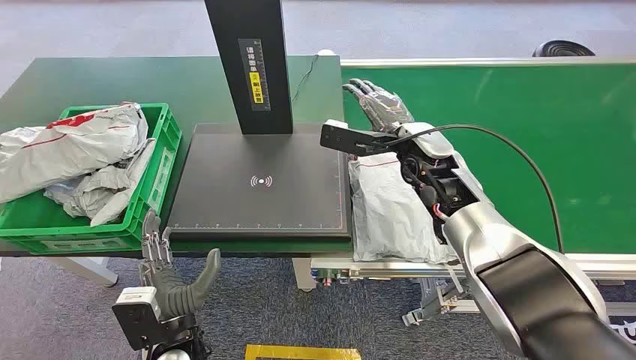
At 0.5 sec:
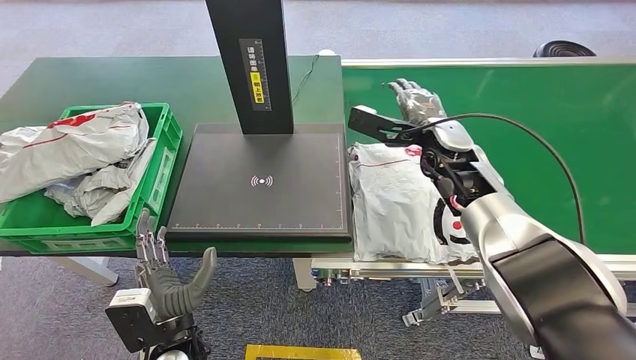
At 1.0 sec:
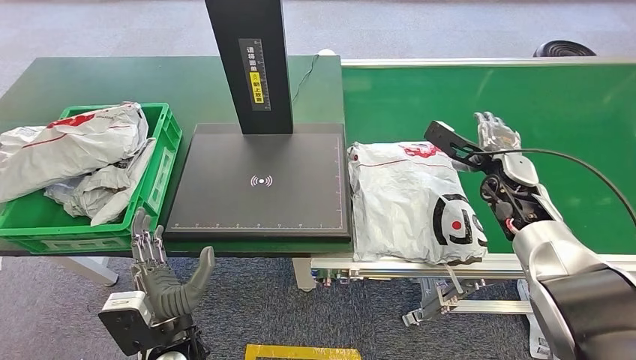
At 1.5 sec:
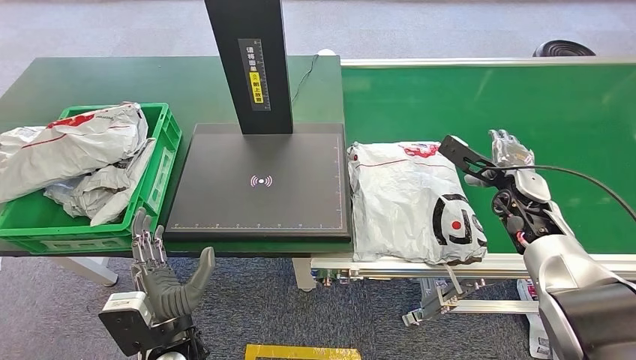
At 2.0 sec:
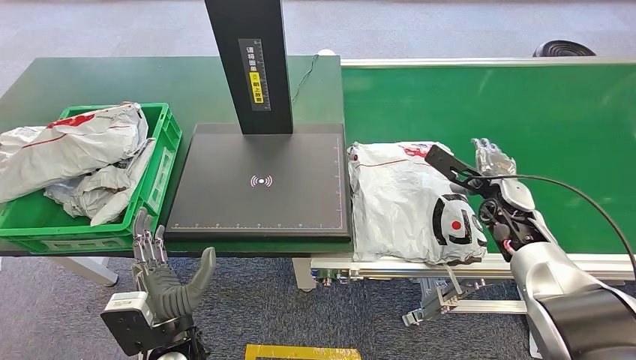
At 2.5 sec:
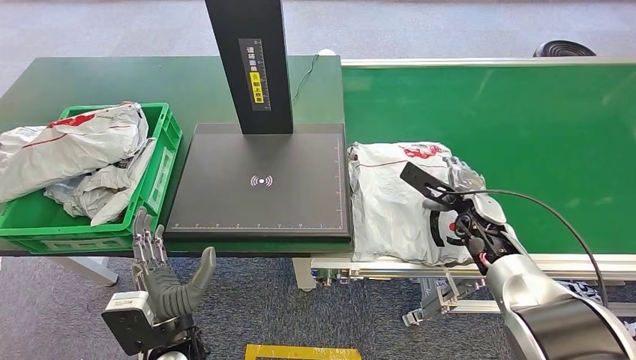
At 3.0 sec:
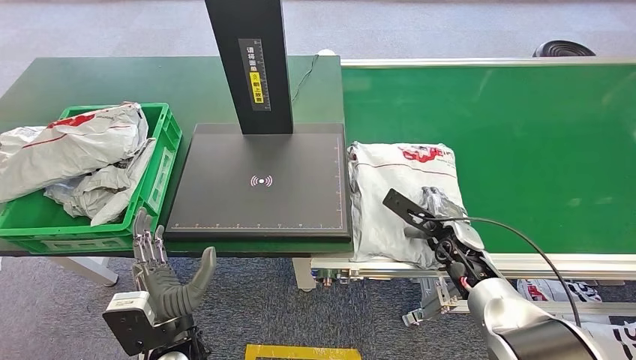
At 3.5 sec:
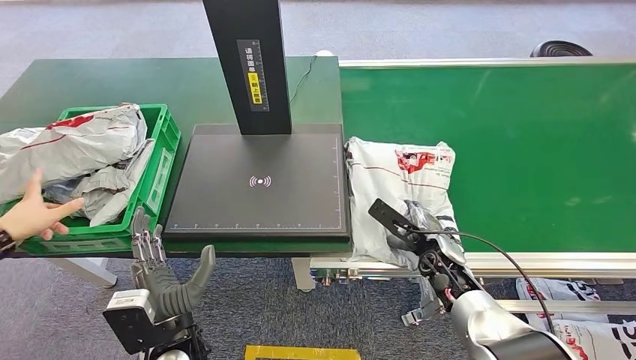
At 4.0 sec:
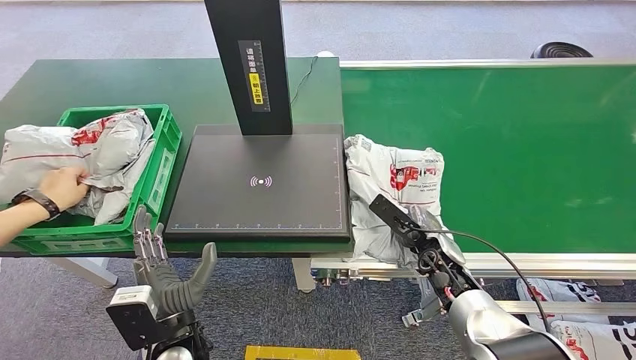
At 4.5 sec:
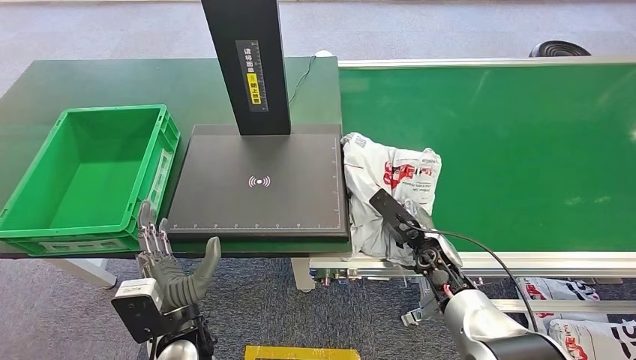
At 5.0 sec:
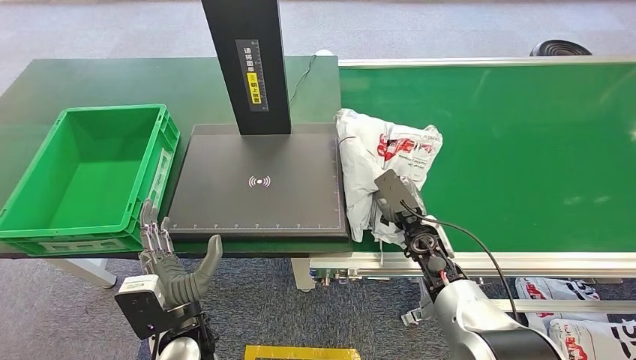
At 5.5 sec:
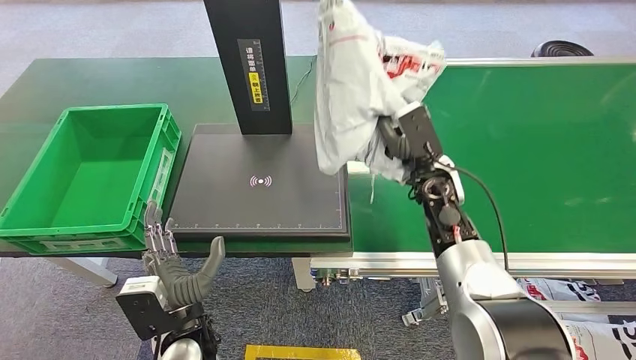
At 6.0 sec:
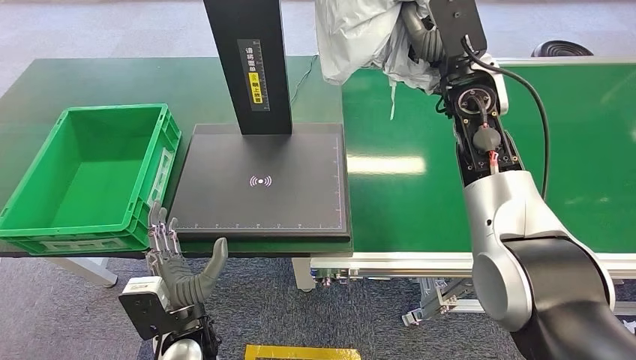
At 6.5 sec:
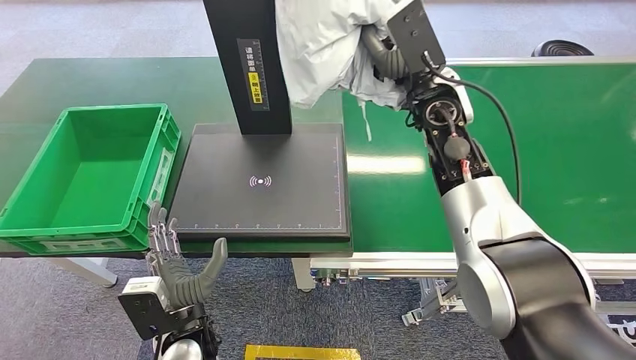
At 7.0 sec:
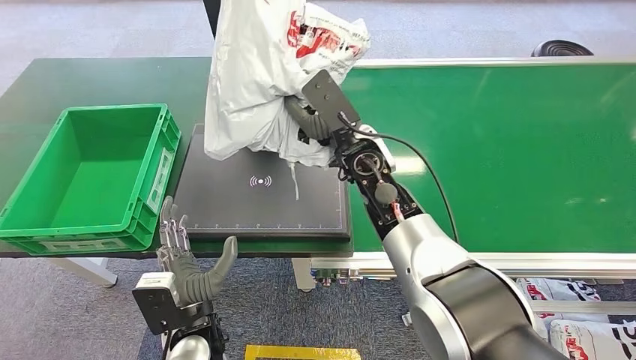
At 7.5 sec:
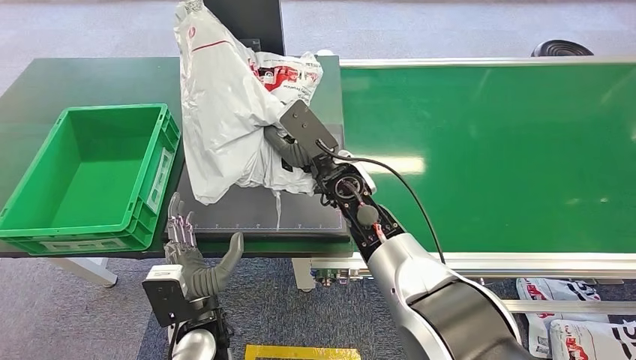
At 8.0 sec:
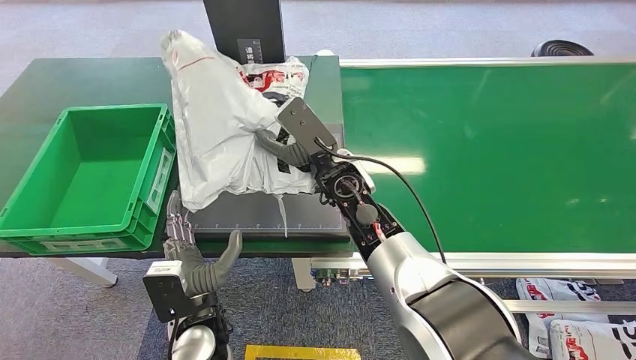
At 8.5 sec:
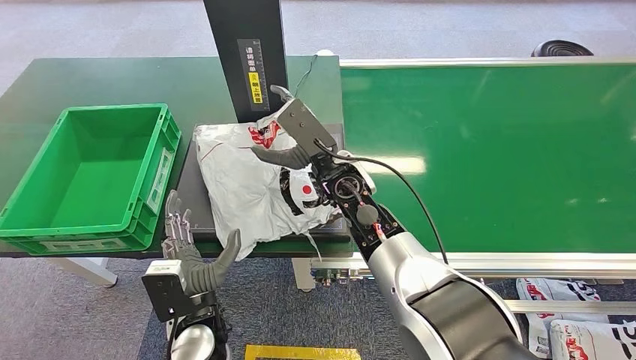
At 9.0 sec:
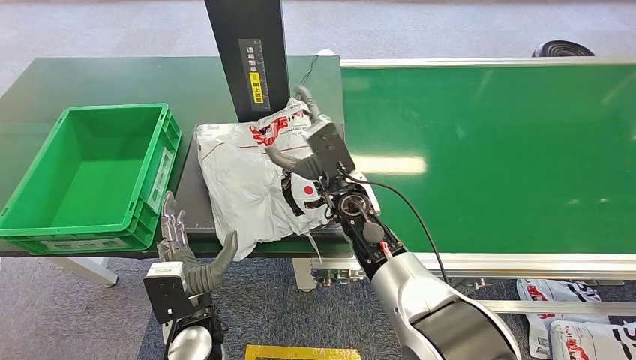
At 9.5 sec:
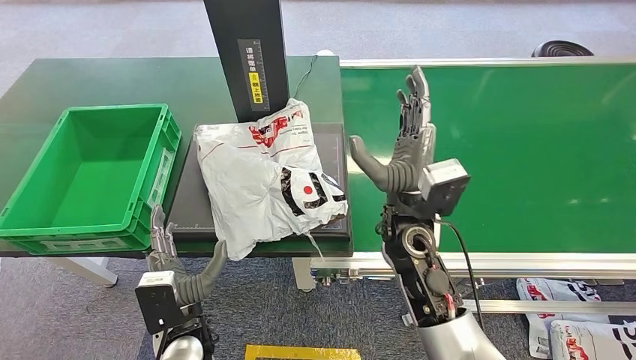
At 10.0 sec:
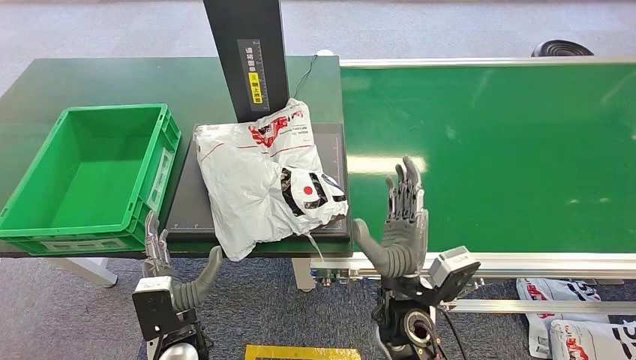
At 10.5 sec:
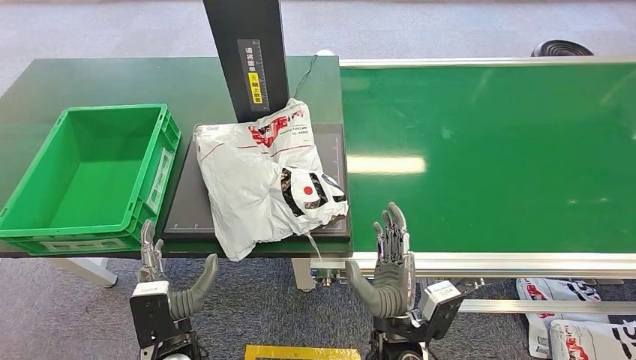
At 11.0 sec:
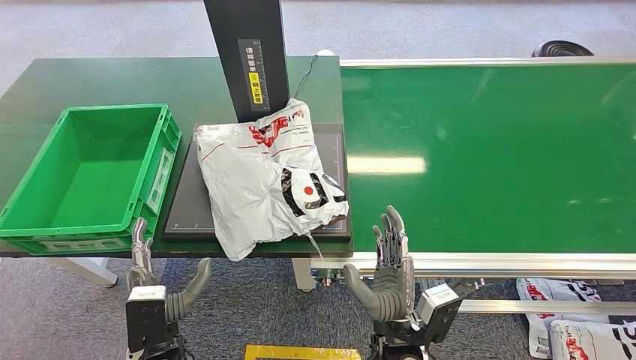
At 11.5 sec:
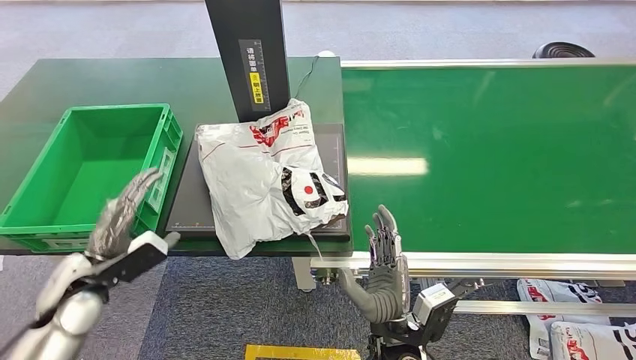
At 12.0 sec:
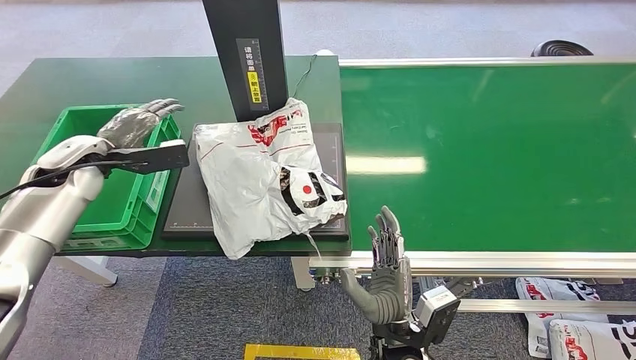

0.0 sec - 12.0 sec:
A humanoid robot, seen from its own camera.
Task of the whole recording: Weigh the package on the weighing device and place it in the left basket.
Step, 0.0 sec - 5.5 sec: Pick up the package from the conveyor belt.
Step, 6.0 sec - 9.0 sec: Place the package onto the inbound machine.
2.0 sec - 4.0 sec: The right hand shifts approximately 15 cm to the left, downward and backward.
10.0 sec - 12.0 sec: The right hand travels backward and downward by approximately 10 cm. The left hand shifts approximately 40 cm forward, to the left and upward.

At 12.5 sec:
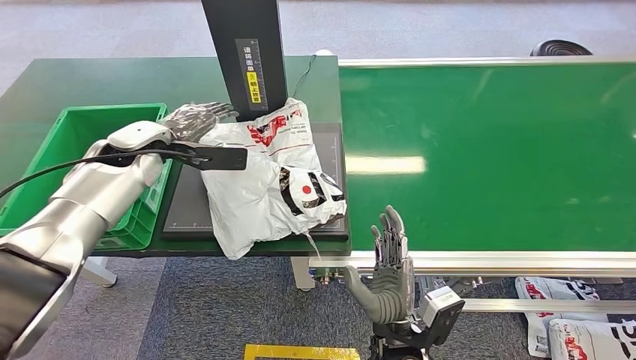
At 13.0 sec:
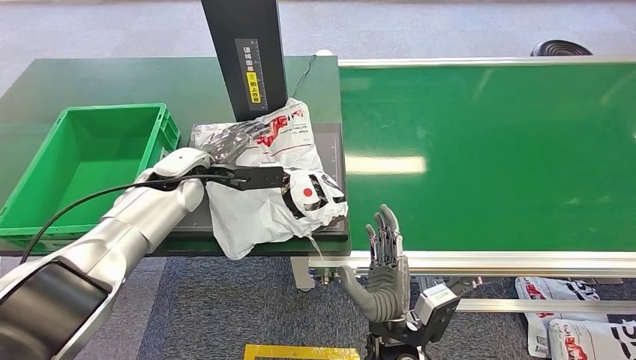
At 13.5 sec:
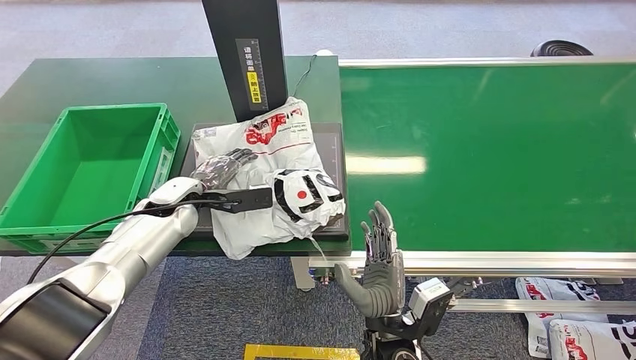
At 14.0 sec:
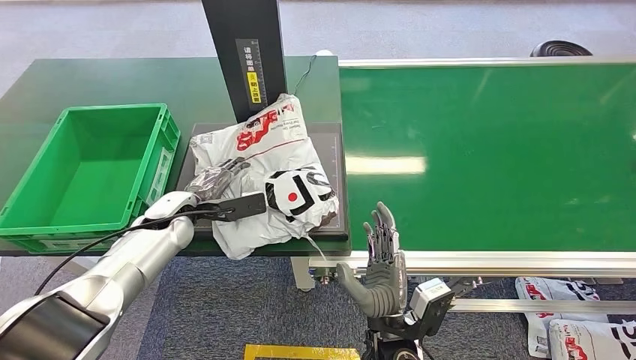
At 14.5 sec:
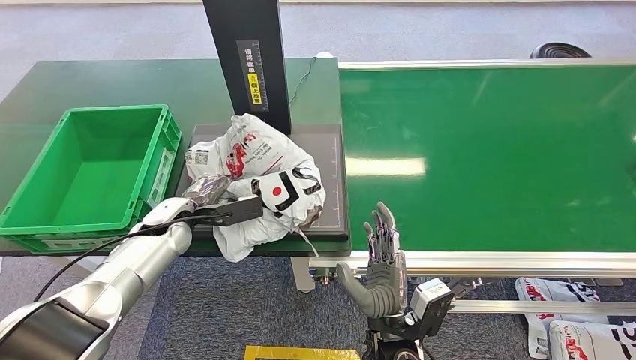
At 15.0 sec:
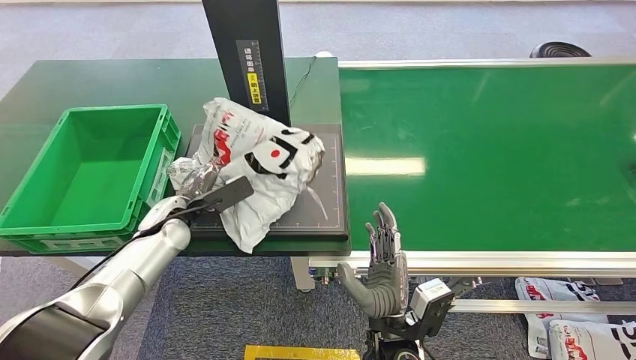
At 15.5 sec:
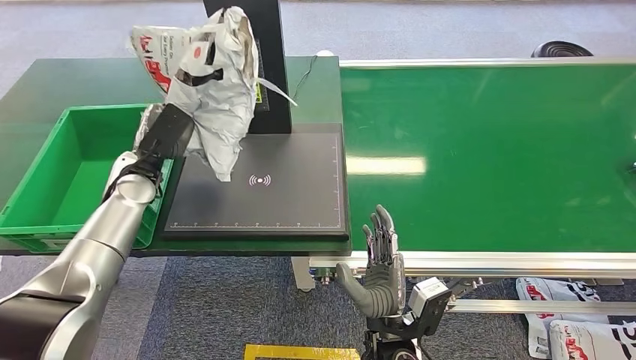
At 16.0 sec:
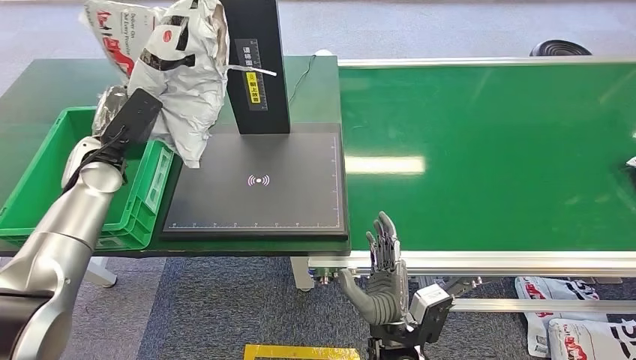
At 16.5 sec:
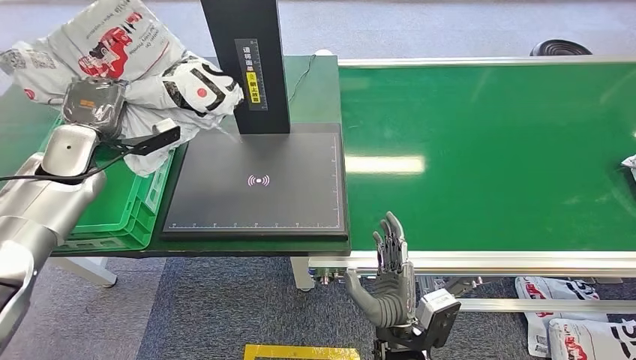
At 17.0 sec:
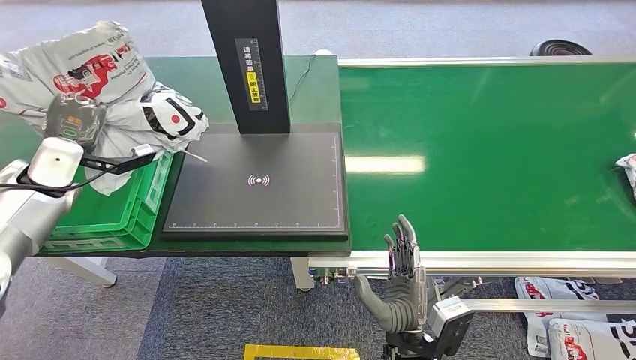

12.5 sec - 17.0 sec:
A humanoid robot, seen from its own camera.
Task of the whole recording: Weigh the package on the weighing device and place it in the left basket.
Step, 12.5 sec - 15.0 sec: Pick up the package from the inbound machine.
Step, 15.5 sec - 17.0 sec: Place the package into the parcel locker.

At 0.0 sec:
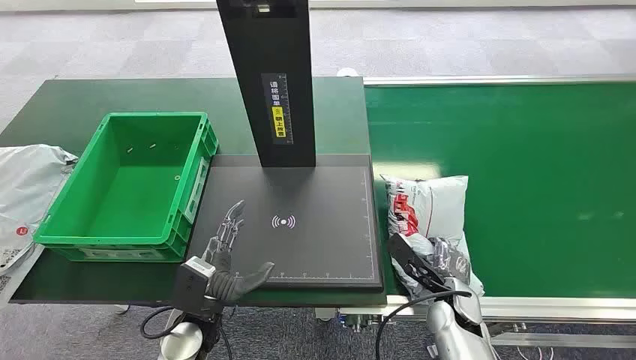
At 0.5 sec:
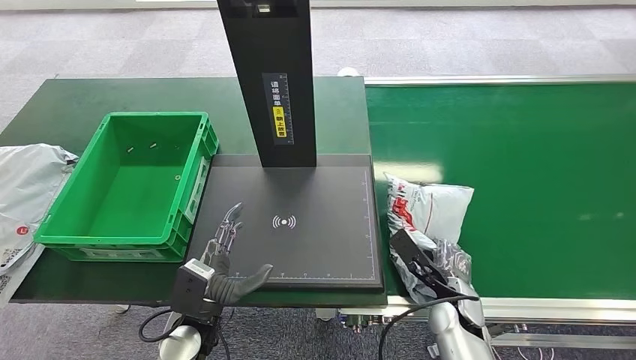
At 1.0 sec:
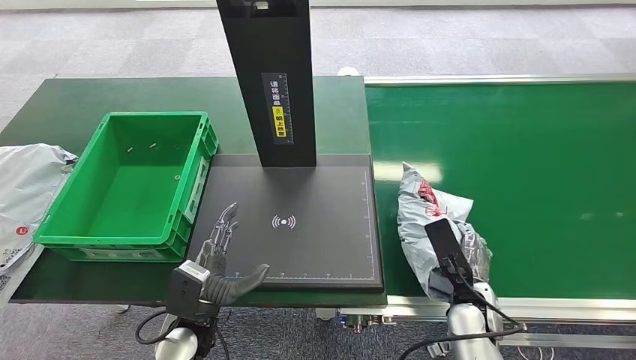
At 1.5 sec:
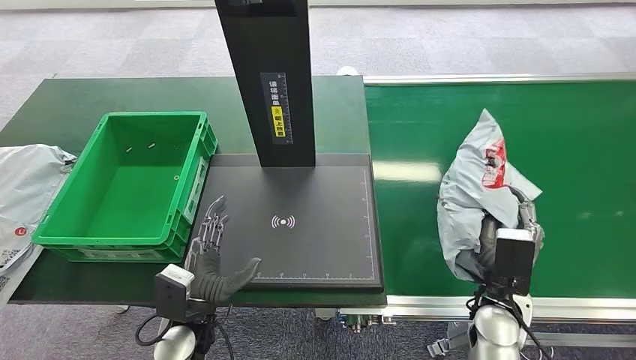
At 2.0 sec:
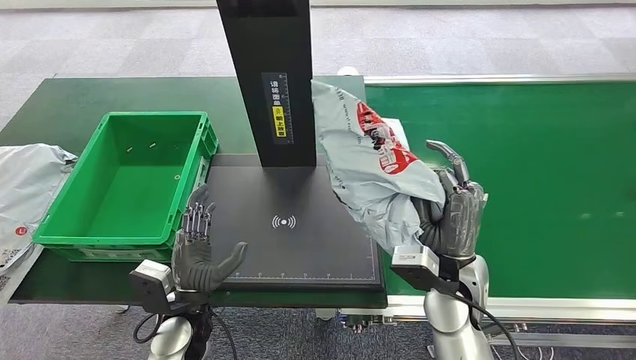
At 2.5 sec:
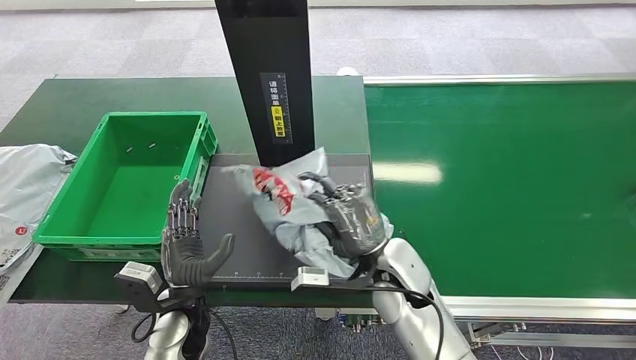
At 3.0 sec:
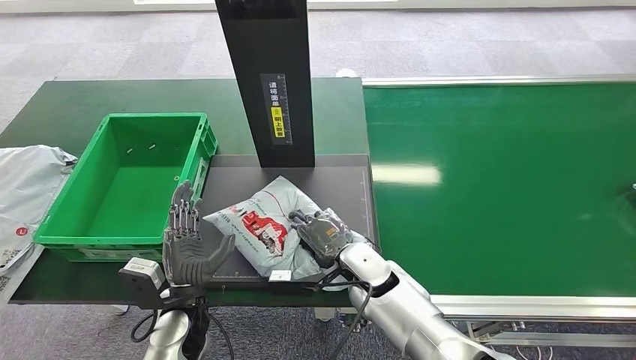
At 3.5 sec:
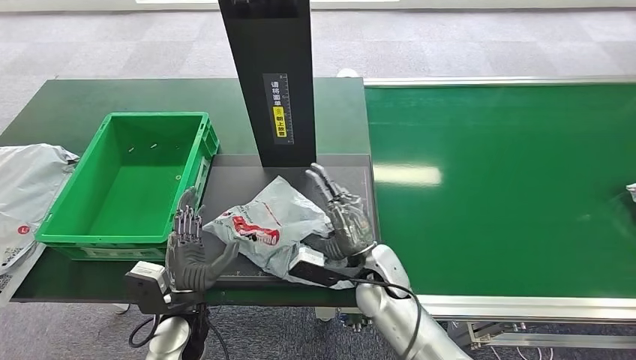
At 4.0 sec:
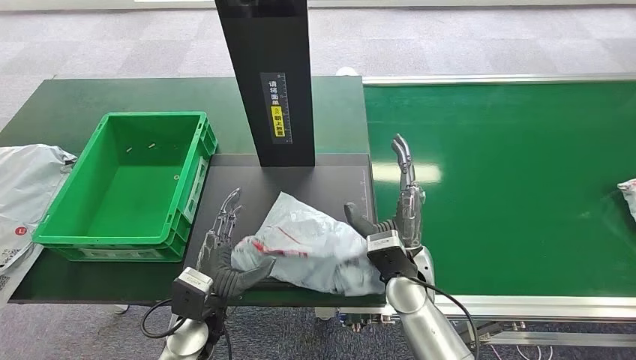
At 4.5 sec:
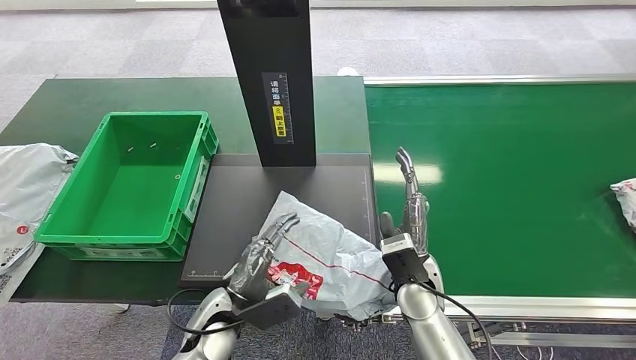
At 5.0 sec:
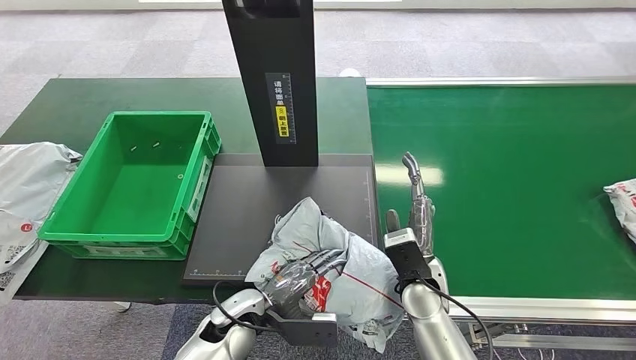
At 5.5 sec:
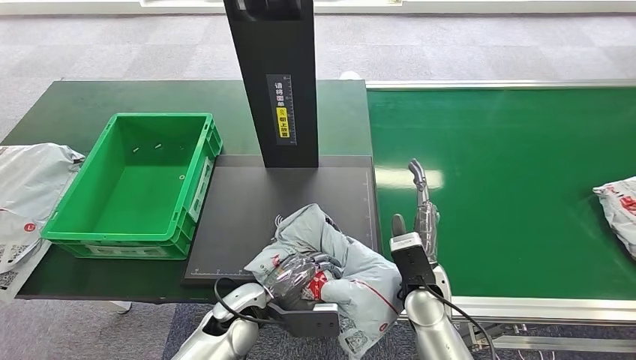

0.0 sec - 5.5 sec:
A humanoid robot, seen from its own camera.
Task of the whole recording: Weigh the package on the weighing device and place it in the left basket.
Step, 0.0 sec - 1.5 sec: Pick up the package from the conveyor belt.
Step, 2.0 sec - 4.0 sec: Place the package onto the inbound machine.
